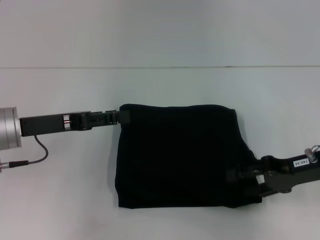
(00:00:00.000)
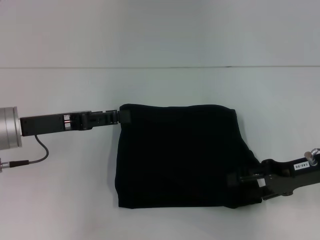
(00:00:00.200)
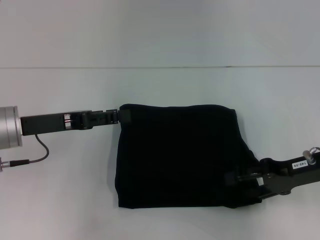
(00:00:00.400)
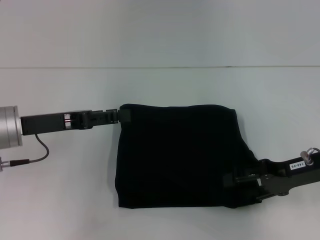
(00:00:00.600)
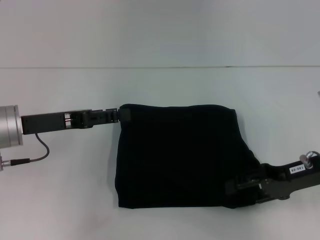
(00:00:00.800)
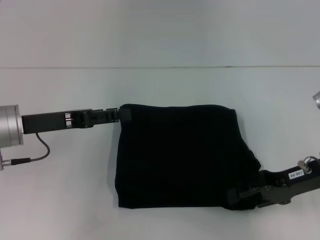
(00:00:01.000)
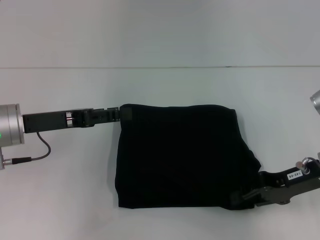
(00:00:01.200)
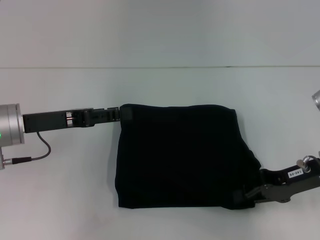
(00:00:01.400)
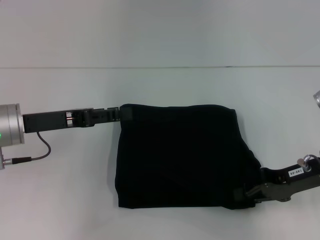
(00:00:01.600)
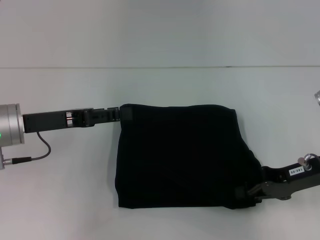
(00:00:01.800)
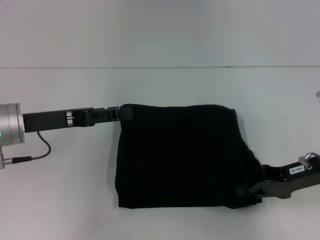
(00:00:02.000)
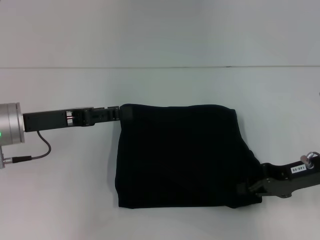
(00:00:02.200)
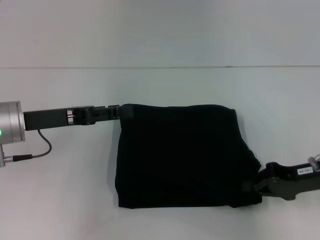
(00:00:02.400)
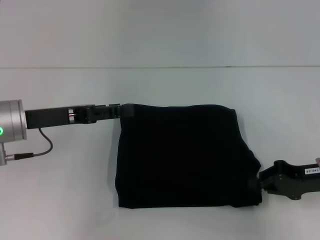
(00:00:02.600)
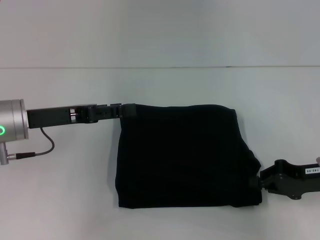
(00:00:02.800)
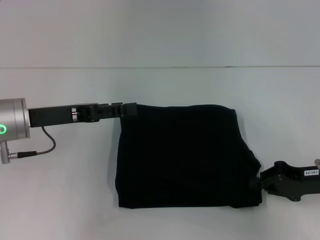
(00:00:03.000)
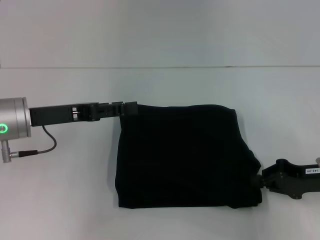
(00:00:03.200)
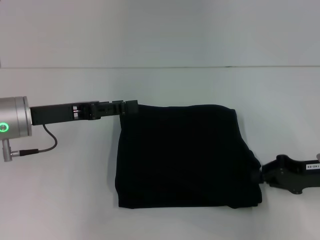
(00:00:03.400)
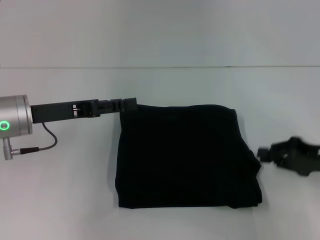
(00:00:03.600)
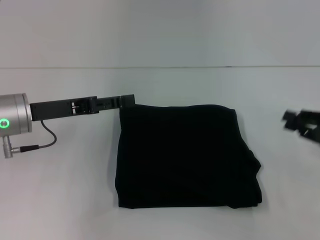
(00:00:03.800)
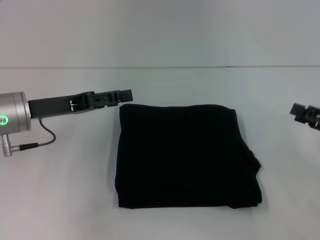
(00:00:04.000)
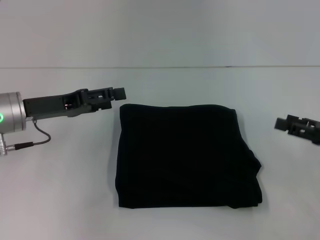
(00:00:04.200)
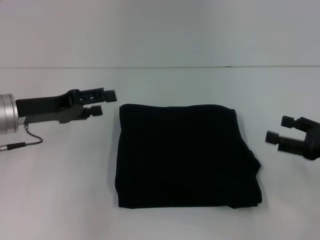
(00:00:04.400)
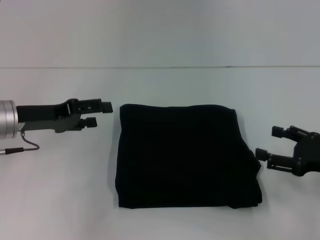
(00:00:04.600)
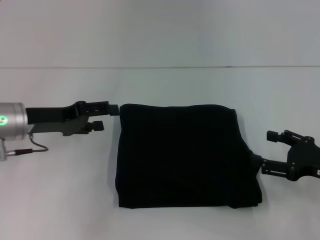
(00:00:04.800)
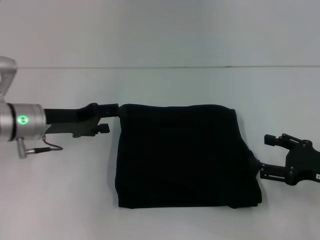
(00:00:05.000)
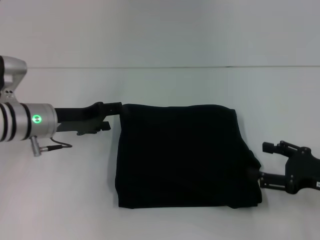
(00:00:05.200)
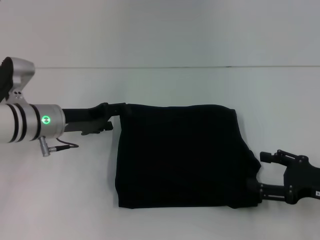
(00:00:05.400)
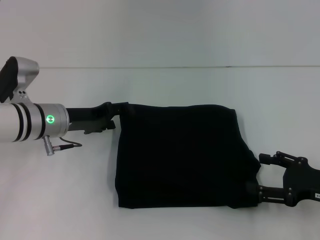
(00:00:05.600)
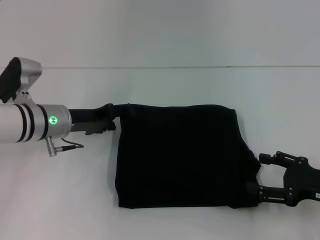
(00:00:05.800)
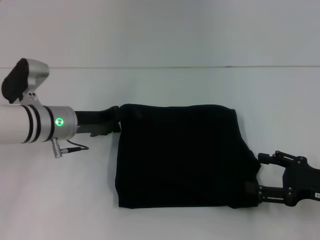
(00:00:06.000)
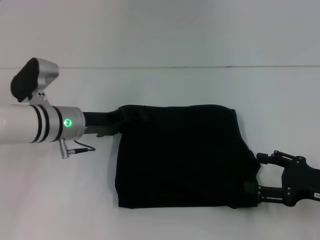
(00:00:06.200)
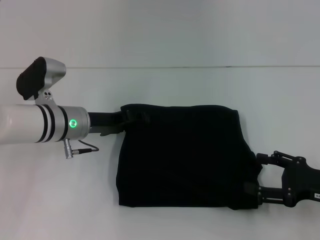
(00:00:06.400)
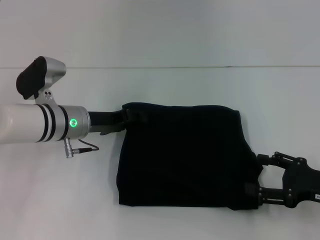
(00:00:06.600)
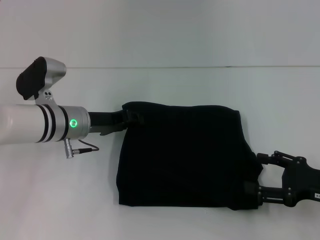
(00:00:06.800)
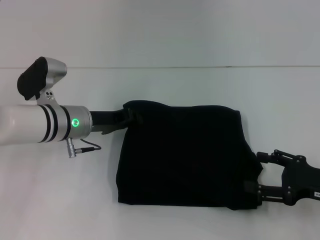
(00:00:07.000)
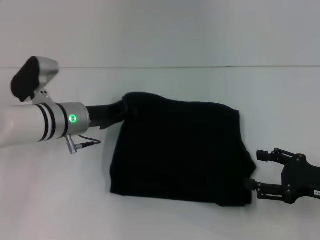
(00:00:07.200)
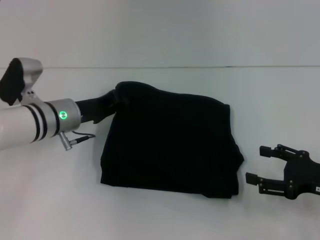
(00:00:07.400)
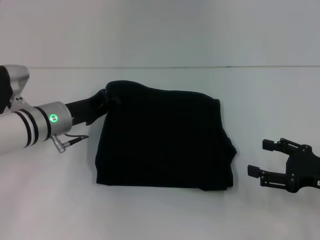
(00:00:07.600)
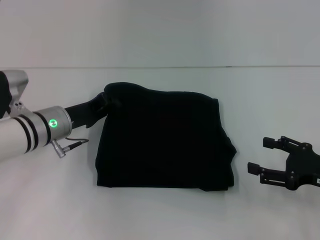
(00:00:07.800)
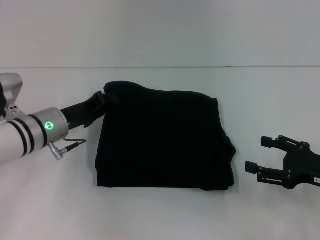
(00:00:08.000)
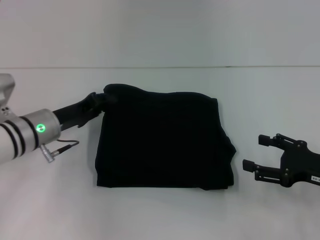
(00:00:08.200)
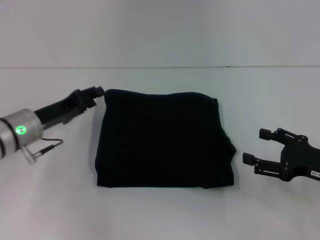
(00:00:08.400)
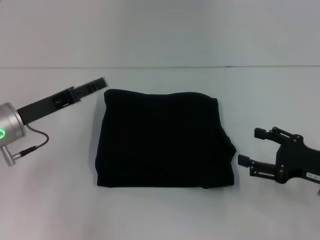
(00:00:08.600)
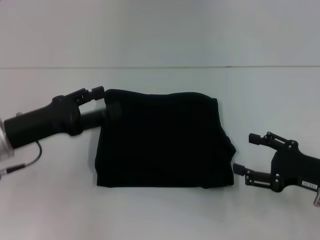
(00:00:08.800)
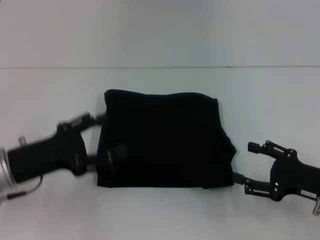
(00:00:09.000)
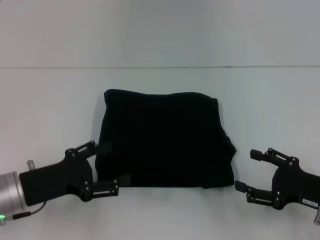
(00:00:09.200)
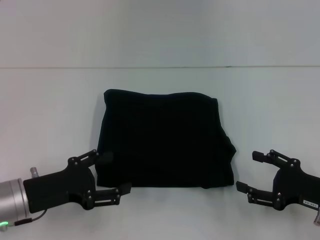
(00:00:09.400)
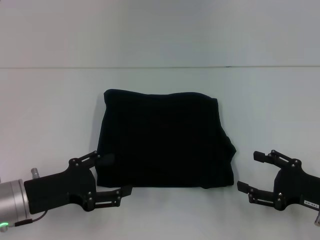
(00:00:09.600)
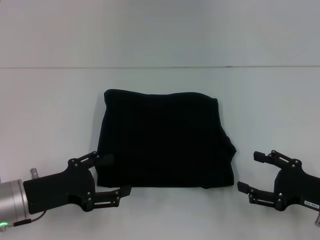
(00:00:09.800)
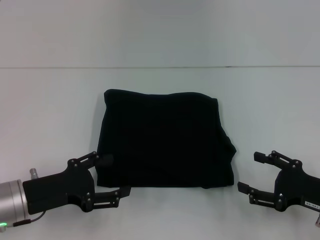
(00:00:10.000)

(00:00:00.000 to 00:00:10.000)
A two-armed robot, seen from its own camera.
00:00:00.000 - 00:00:01.400: The right gripper closes up.
00:00:01.400 - 00:00:02.800: The grippers make only small movements.
00:00:02.800 - 00:00:04.200: The right gripper shifts by approximately 5 cm, and opens up.
00:00:04.200 - 00:00:05.800: The left gripper shifts by about 10 cm. Meanwhile the right gripper shifts by about 5 cm, and opens.
00:00:05.800 - 00:00:07.200: The left gripper closes up.
00:00:07.200 - 00:00:08.600: The left gripper moves to the left and backward, roughly 10 cm, and opens its fingers.
00:00:08.600 - 00:00:10.000: The left gripper moves backward, roughly 10 cm, and opens.

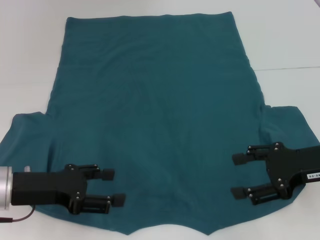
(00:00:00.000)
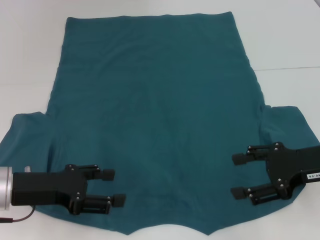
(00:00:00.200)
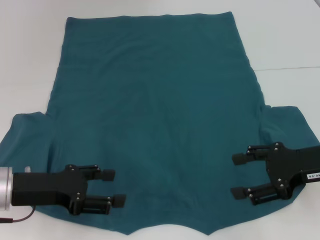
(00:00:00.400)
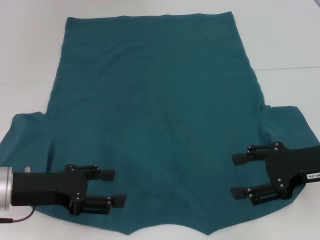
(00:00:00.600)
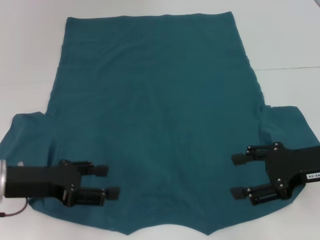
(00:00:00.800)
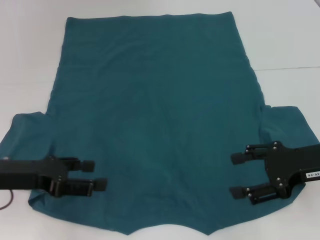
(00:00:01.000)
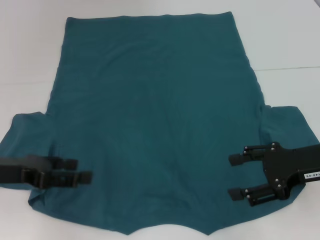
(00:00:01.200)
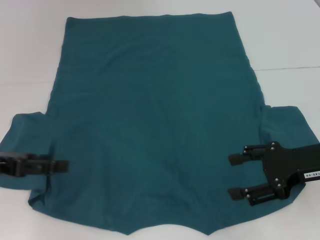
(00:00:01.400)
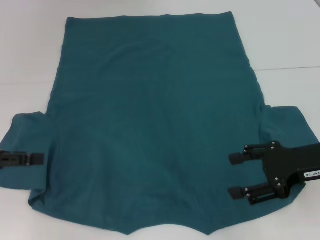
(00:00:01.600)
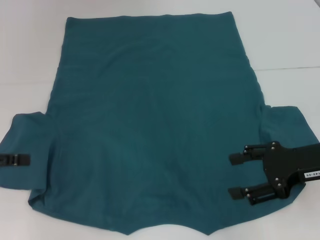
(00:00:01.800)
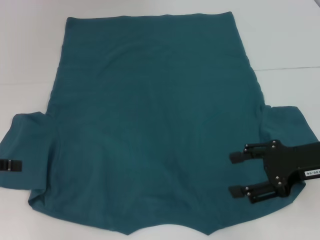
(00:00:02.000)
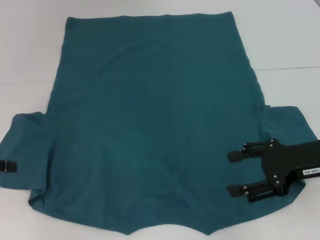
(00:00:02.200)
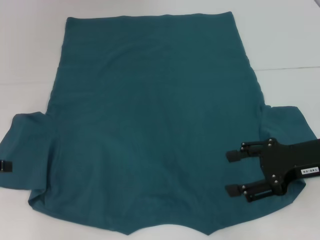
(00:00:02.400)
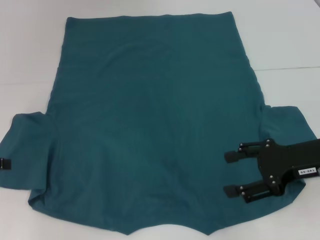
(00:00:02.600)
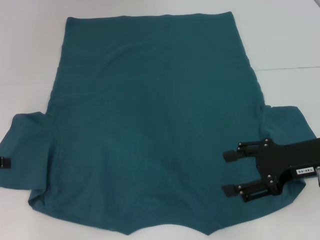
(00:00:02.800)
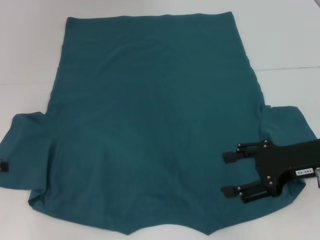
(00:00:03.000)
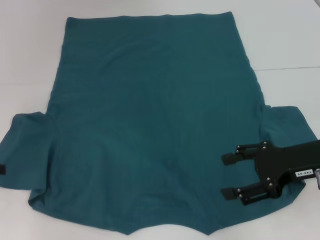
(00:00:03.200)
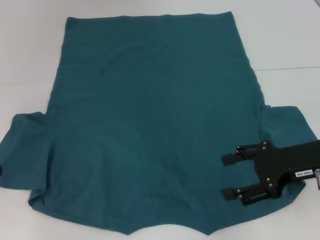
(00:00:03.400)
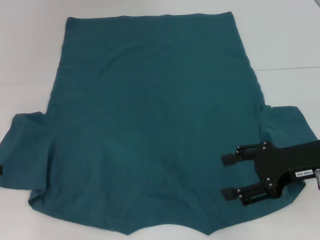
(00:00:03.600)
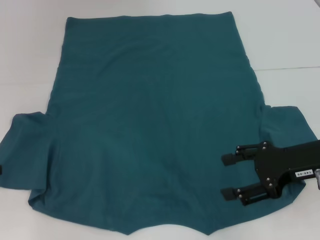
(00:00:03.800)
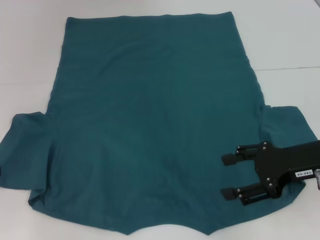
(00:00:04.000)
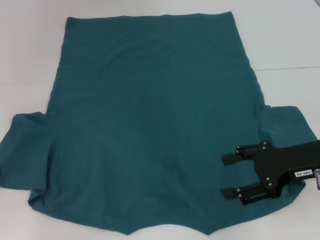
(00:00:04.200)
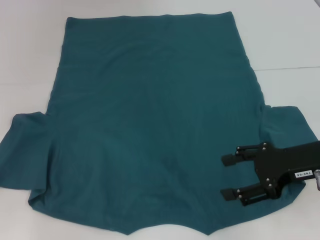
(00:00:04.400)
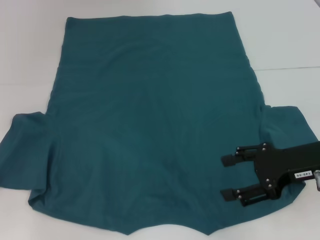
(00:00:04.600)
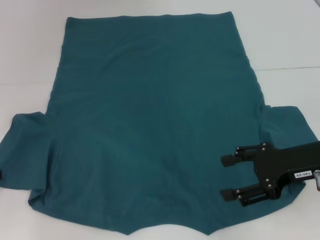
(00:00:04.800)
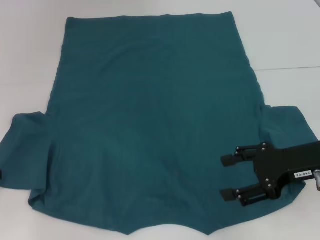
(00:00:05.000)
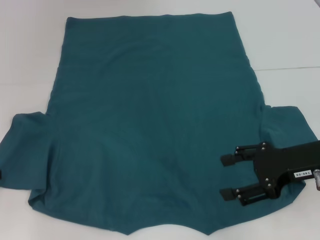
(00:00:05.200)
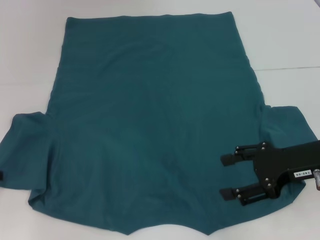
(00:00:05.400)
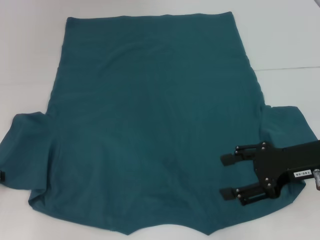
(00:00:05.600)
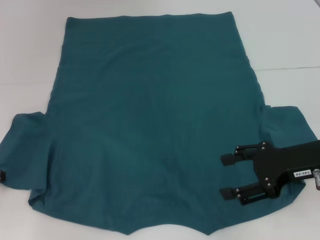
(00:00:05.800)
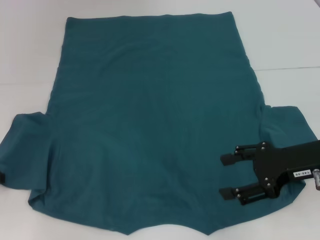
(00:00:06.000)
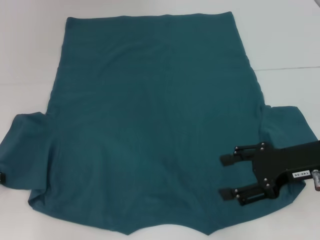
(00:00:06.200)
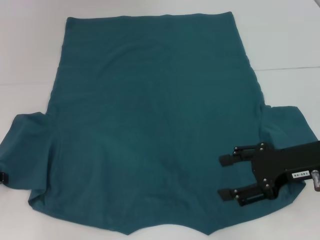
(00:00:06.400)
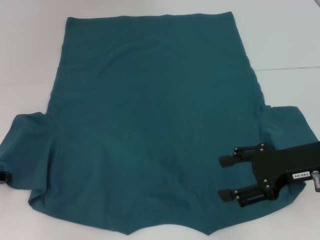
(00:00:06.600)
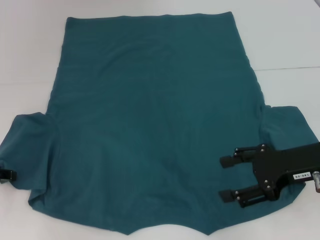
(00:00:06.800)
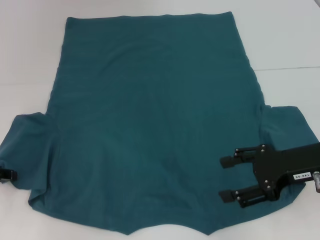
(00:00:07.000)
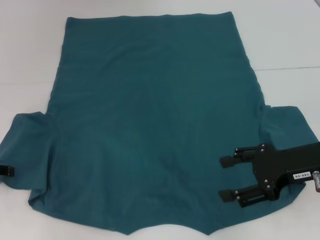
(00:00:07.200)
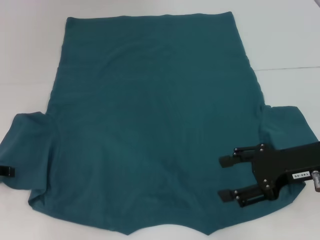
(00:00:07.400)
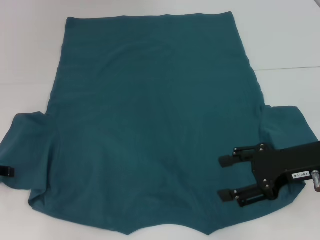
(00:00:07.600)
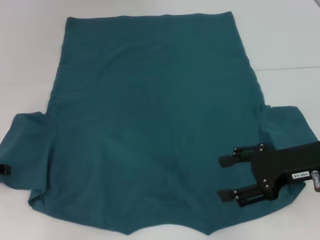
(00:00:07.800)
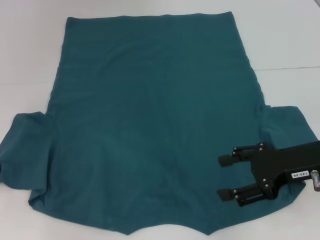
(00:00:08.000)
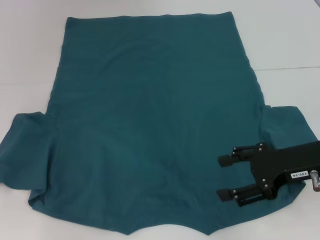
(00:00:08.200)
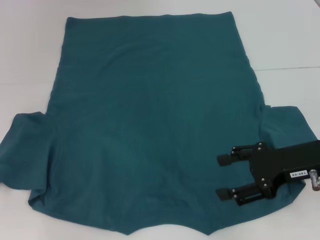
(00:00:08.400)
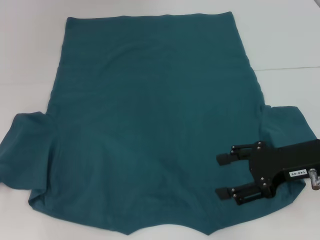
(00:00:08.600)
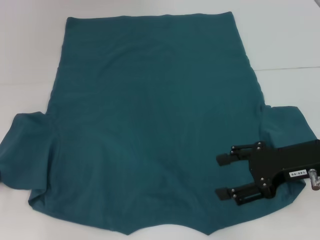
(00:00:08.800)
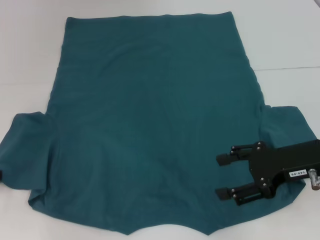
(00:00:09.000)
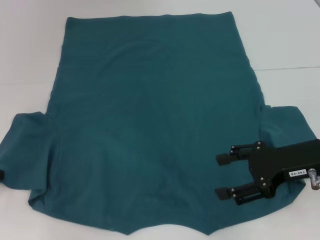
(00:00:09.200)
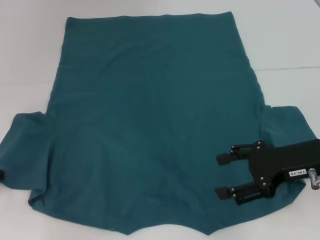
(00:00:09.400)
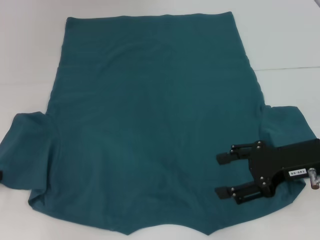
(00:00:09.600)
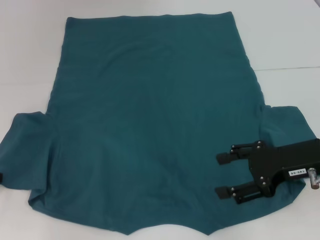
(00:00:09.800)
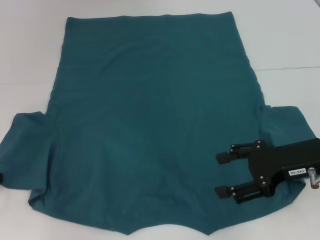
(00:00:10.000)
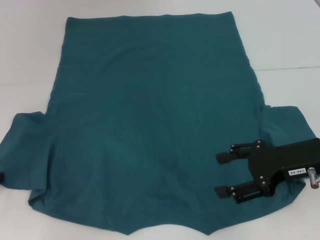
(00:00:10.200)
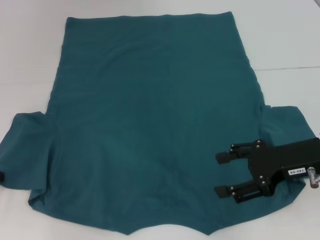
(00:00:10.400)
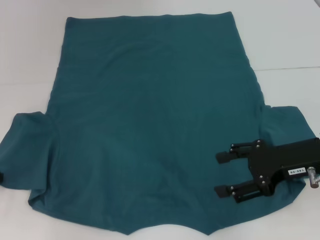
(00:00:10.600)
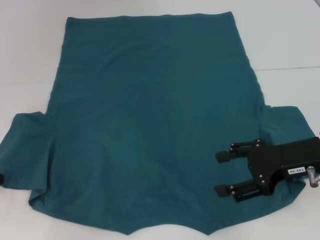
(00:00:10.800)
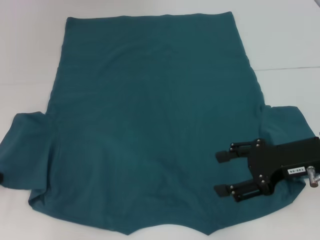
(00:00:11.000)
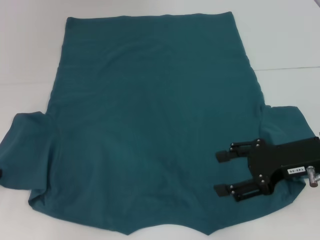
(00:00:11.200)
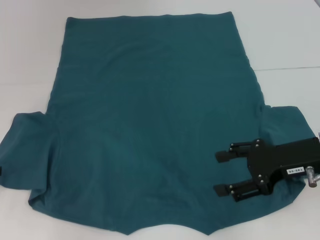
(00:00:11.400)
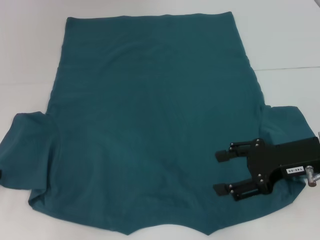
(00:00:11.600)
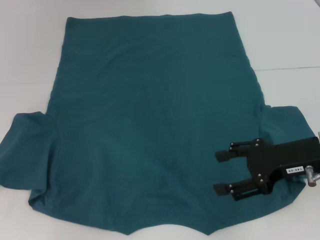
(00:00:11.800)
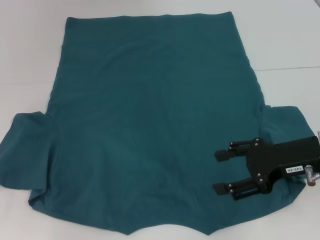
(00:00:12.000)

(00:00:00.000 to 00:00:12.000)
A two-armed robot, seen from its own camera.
00:00:00.000 - 00:00:01.600: The left gripper heads to the left and upward, covering roughly 10 cm.
00:00:03.000 - 00:00:04.400: The grippers stay close to where they were, moving slightly.
00:00:07.600 - 00:00:09.000: The grippers make only small movements.
00:00:09.000 - 00:00:10.400: The two grippers keep their place.
00:00:10.400 - 00:00:12.000: The grippers make only small movements.
